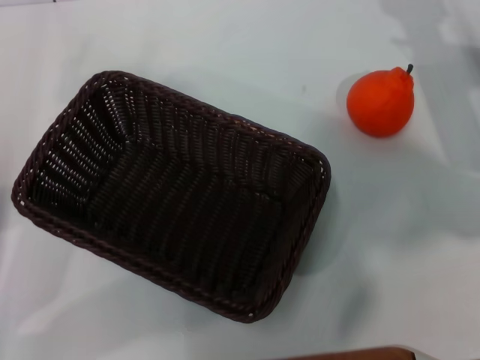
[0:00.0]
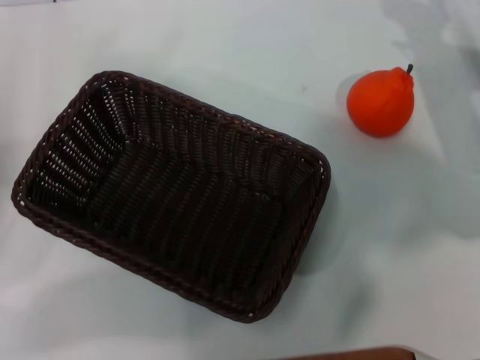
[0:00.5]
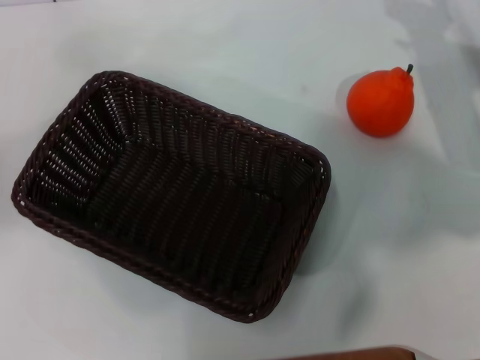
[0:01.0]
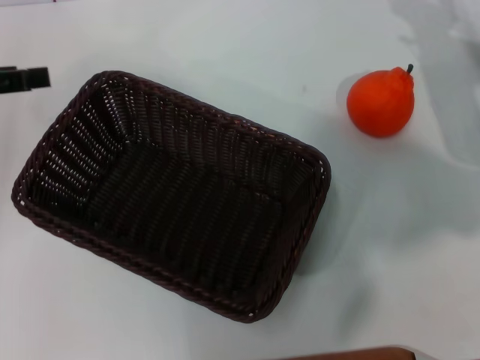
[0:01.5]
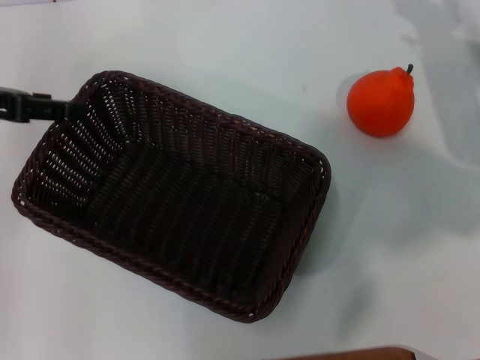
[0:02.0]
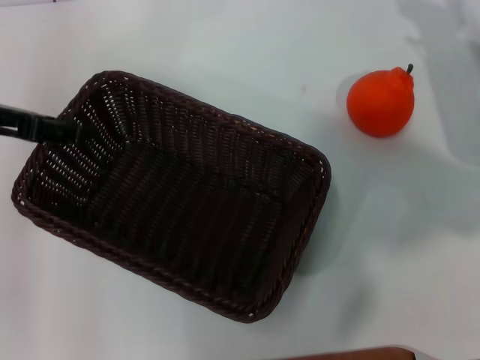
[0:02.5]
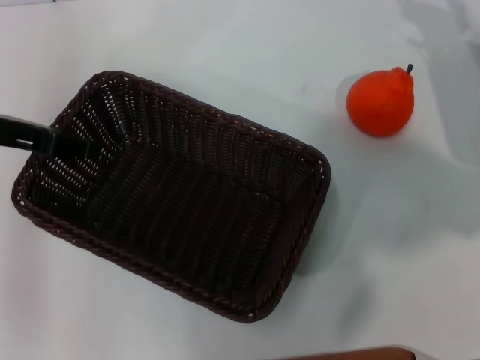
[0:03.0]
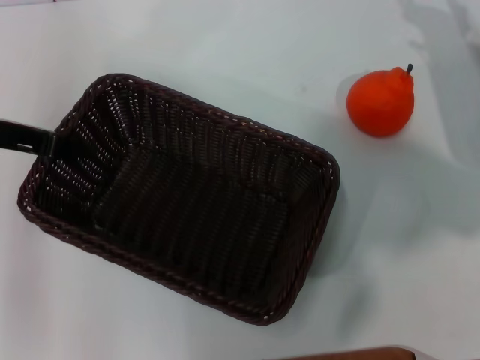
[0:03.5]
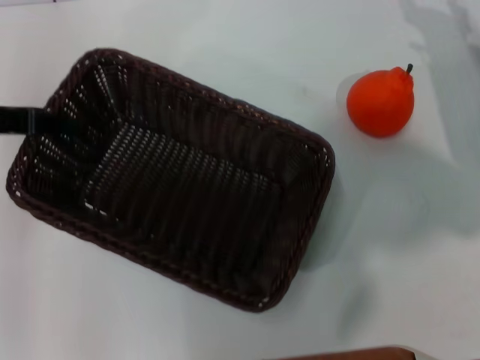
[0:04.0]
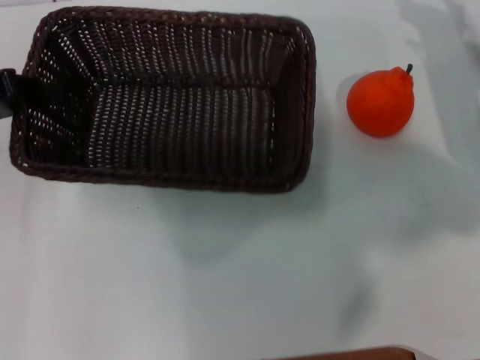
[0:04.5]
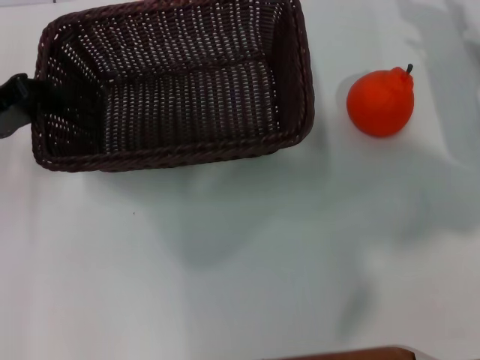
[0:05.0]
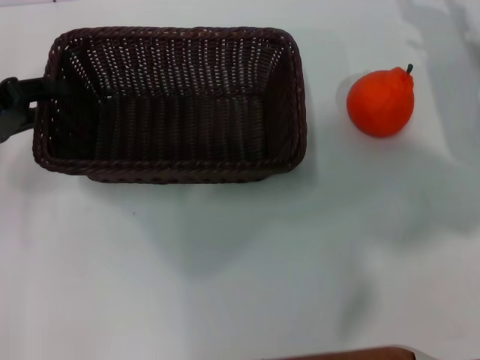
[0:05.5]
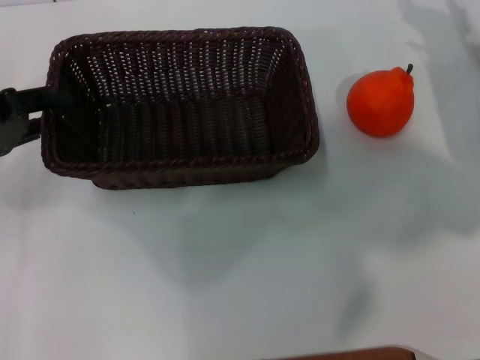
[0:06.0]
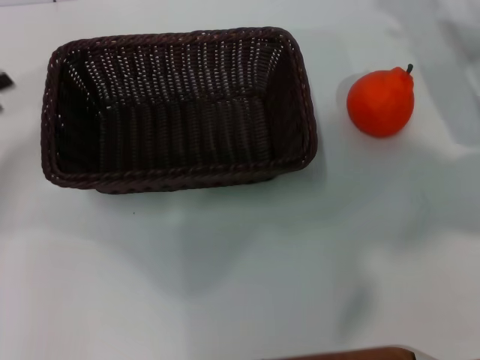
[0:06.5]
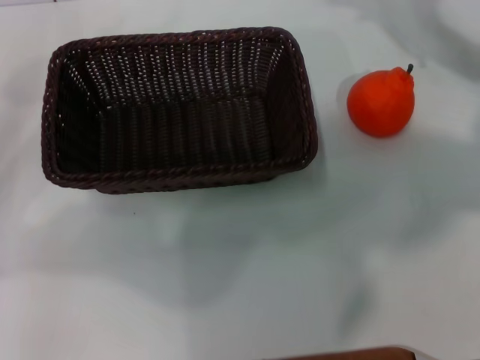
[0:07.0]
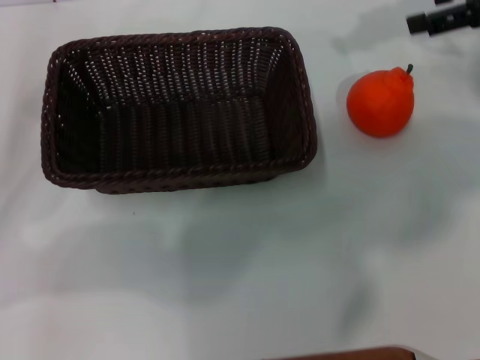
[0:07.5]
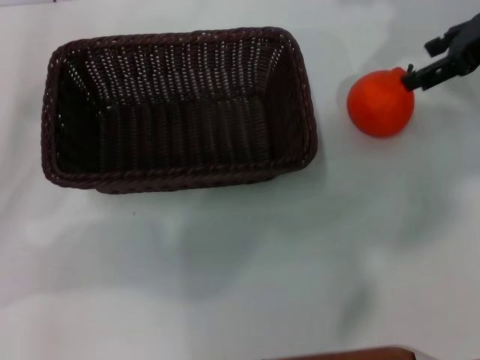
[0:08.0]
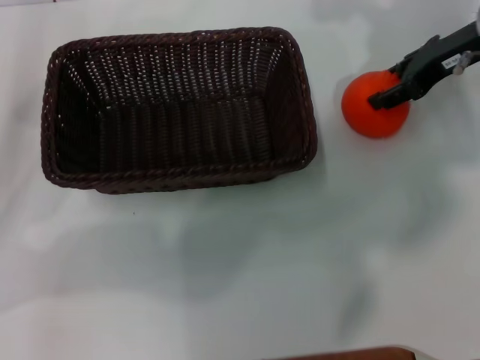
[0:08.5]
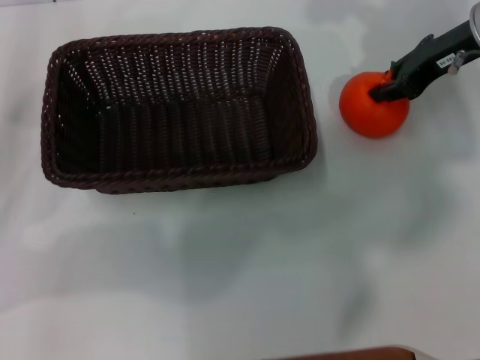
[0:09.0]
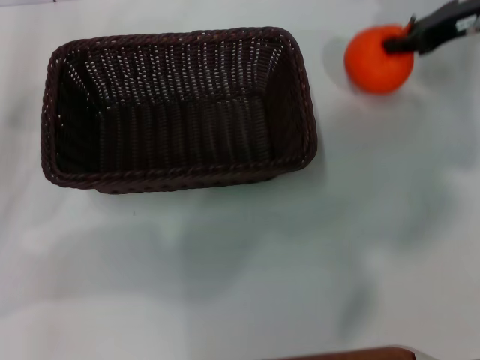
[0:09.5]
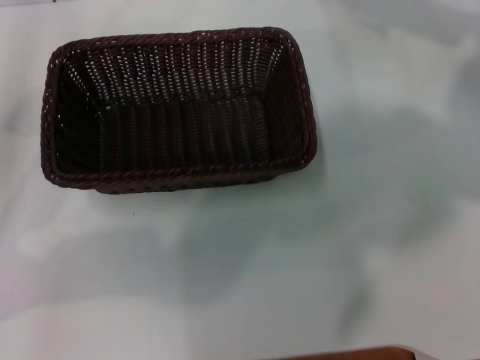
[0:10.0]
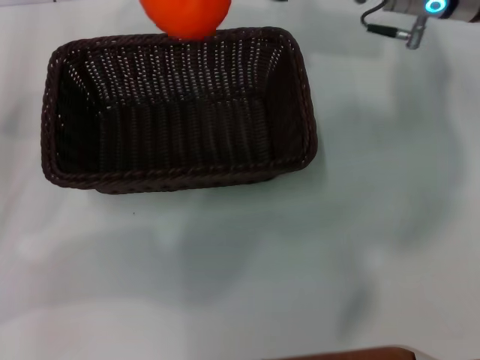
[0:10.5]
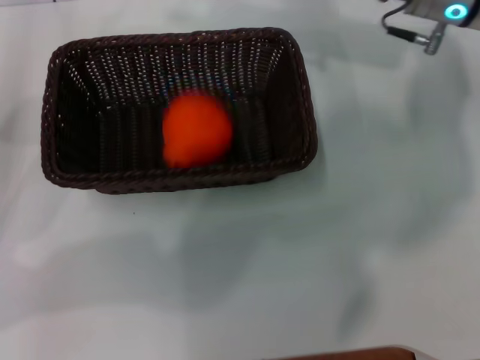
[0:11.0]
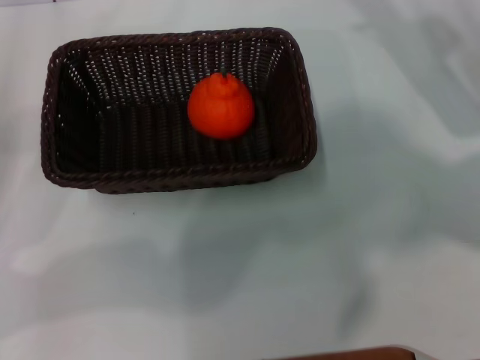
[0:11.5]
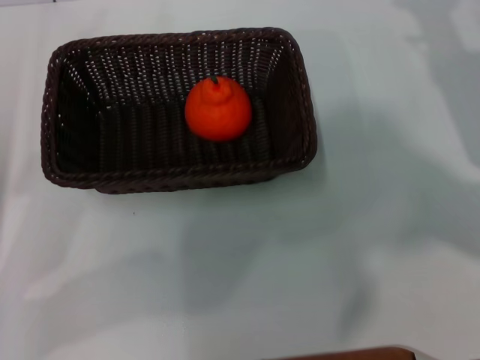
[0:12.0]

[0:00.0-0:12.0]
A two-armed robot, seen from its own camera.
Task of the whole recording: the left gripper pick up the black basket and place it horizontally in the middle of the table, the right gripper pick up the orange and place it into the black basket.
Step, 0:00.0 to 0:04.0: Pick up the dark basket with the left gripper.
Step, 0:04.5 to 0:06.0: Place the dark basket in the center of view with the left gripper.
Step, 0:06.5 to 0:09.5: Pick up the orange with the right gripper.
Step, 0:10.0 to 0:10.5: Place the orange into the dark basket with the right gripper.
0:00.0 to 0:02.0: The left gripper moves forward and upward, some 15 cm.
0:02.0 to 0:04.0: The left gripper closes.
0:04.0 to 0:06.0: The left gripper is displaced downward by some 5 cm, and opens up.
0:06.0 to 0:08.0: The left gripper opens up. The right gripper goes approximately 15 cm upward.
0:08.0 to 0:10.0: The right gripper closes up.
0:10.0 to 0:12.0: The right gripper shifts approximately 15 cm downward and backward, reaches about 10 cm to the left, then returns, and opens its fingers.

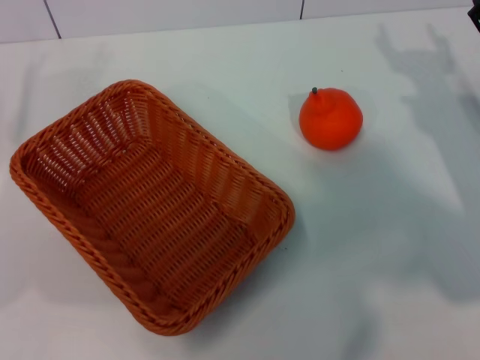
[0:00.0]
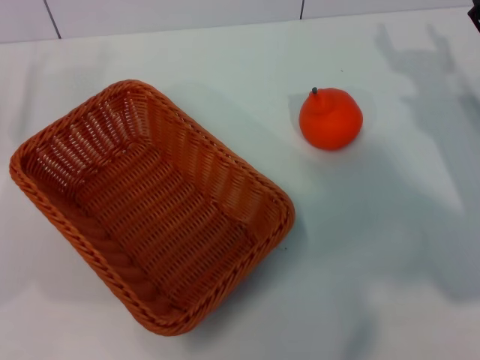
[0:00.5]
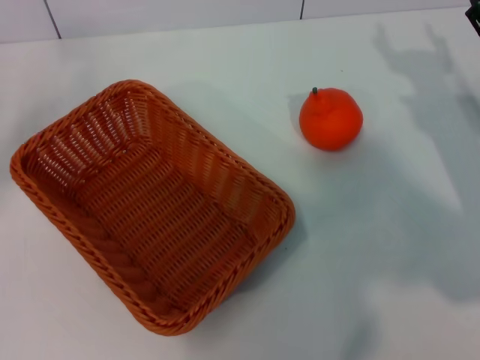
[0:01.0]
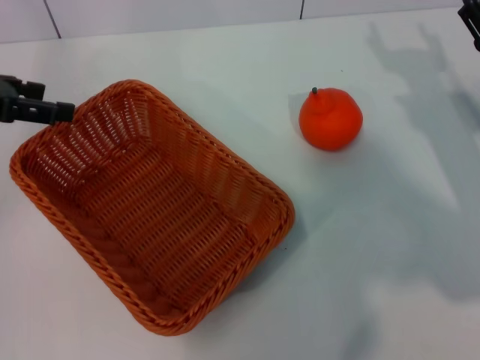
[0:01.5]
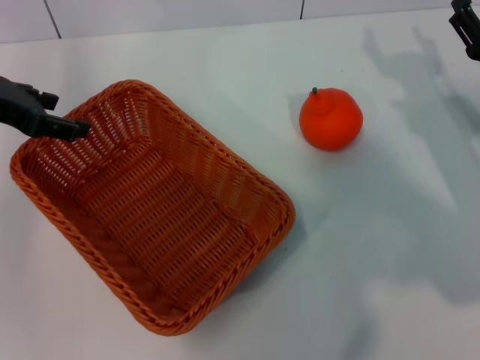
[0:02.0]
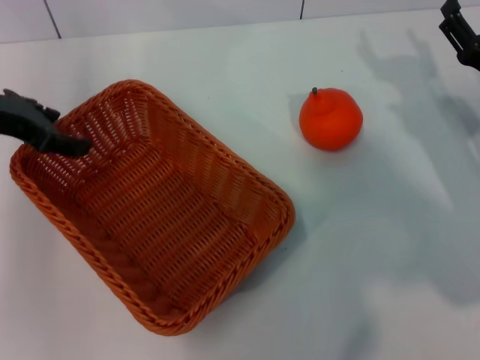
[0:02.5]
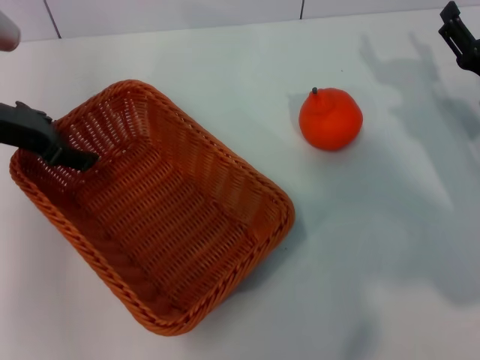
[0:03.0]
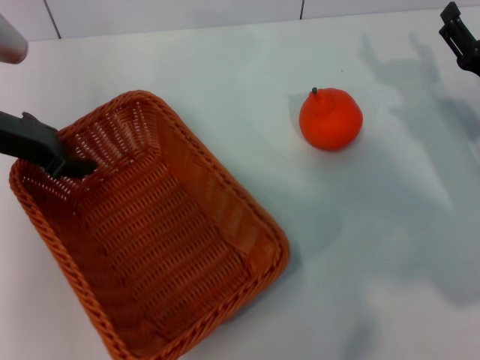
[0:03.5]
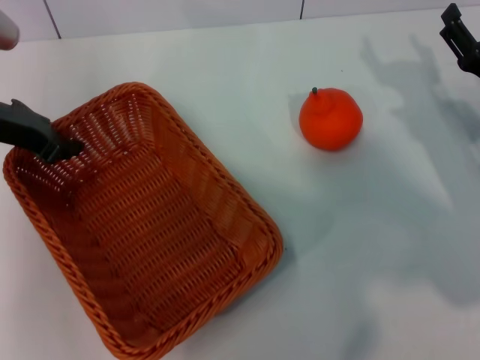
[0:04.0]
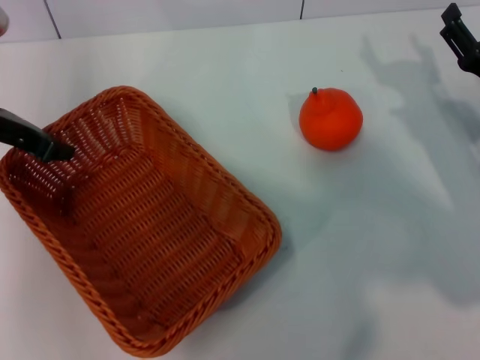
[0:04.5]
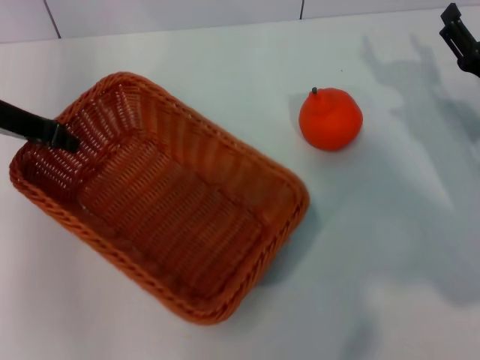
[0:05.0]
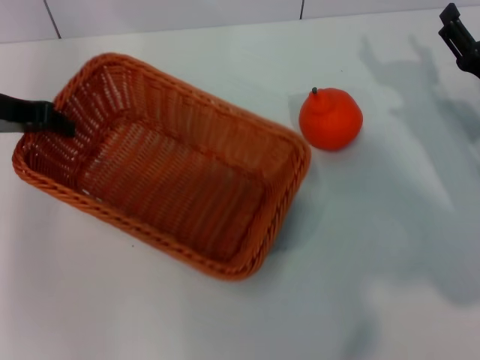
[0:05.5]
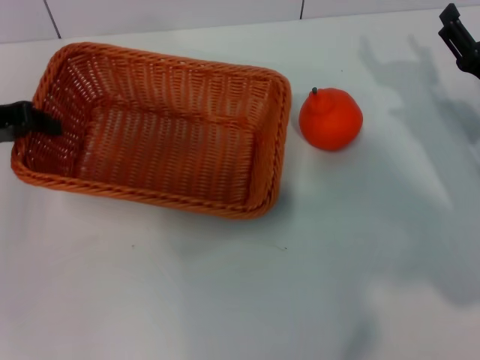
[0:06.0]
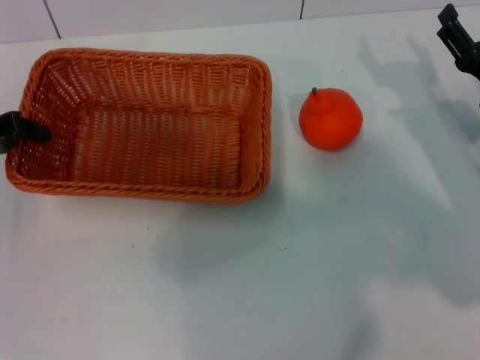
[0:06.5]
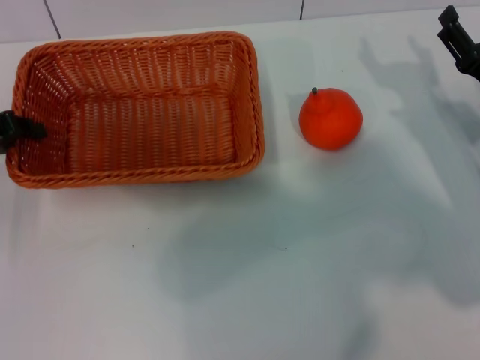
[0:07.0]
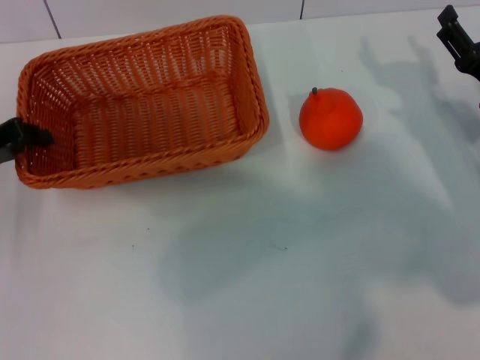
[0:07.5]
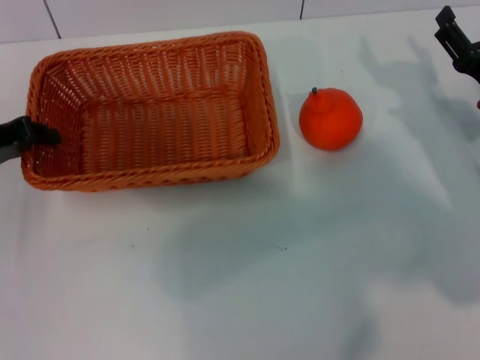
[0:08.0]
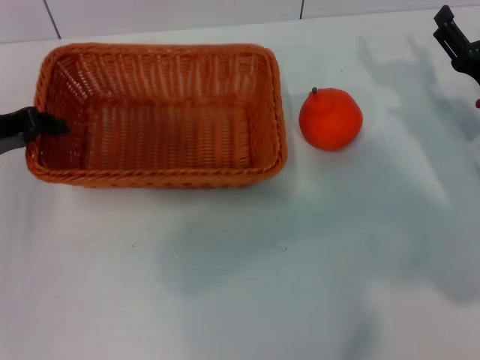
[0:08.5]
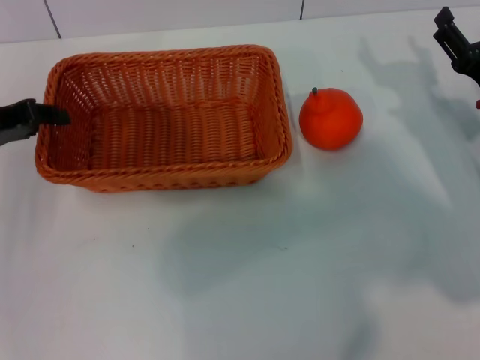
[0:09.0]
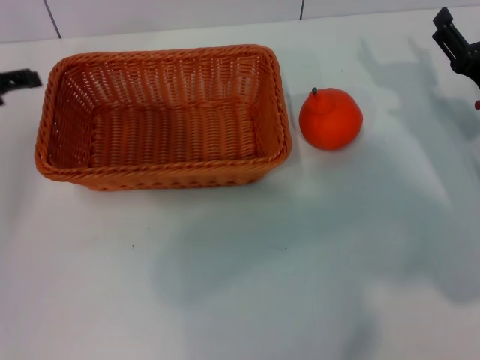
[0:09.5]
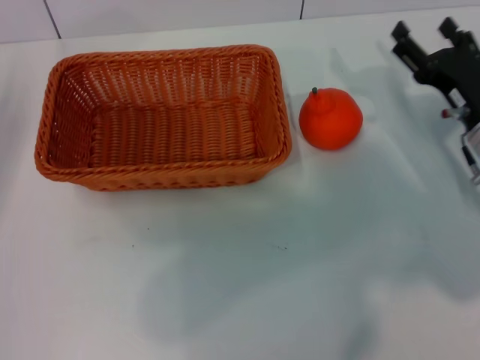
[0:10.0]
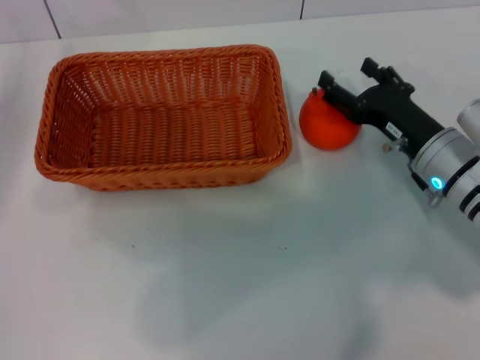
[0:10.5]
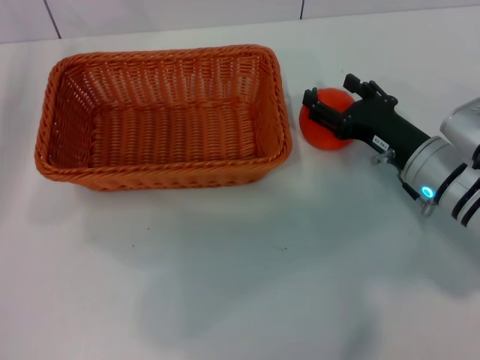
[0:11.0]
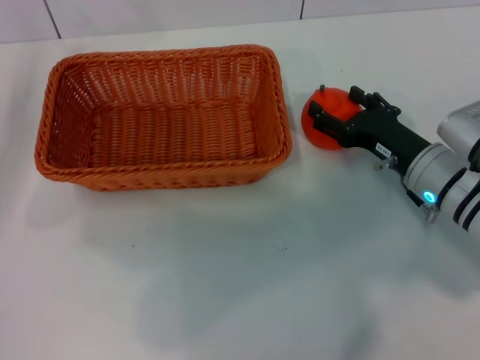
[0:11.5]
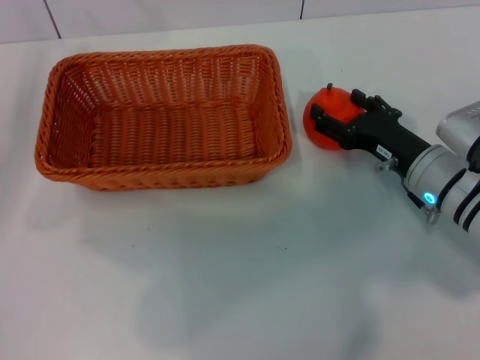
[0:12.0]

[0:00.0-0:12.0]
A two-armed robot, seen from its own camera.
Task of the whole recording: the left gripper pick up the yellow basket and place it horizontally in the middle of the table, the right gripper pick up the orange and place it into the yellow basket.
Step, 0:00.0 to 0:05.0: Pick up the light basket with the left gripper.
Step, 0:05.5 to 0:09.0: Place the light basket in the center of view with the left gripper.
0:00.0 to 0:02.0: The left gripper goes roughly 15 cm upward, to the right and forward.
0:02.0 to 0:04.0: The left gripper closes its fingers.
0:04.0 to 0:06.0: The left gripper shifts about 5 cm to the left.
0:06.0 to 0:08.0: The grippers stay close to where they were, moving slightly.
0:08.0 to 0:10.0: The left gripper moves about 5 cm, and opens up.
0:10.0 to 0:12.0: The right gripper moves some 5 cm.

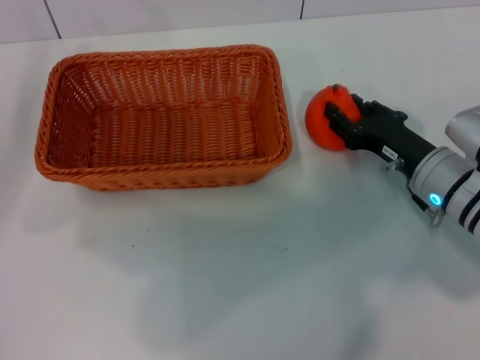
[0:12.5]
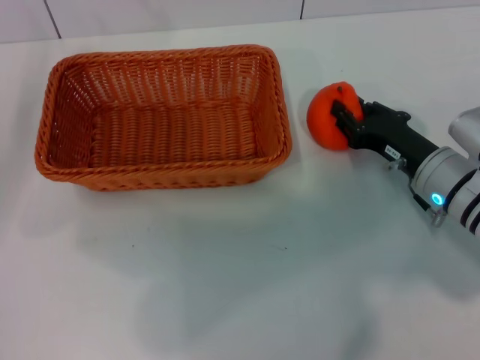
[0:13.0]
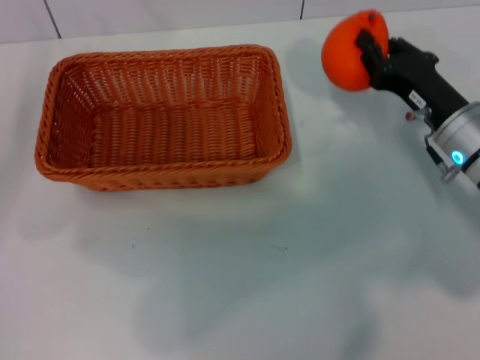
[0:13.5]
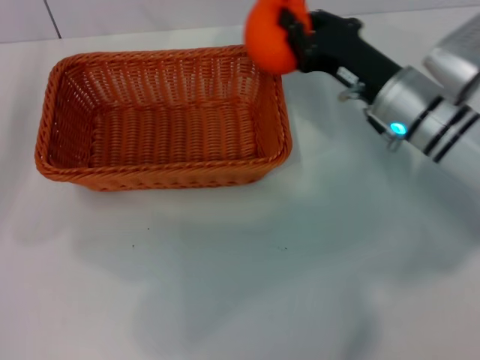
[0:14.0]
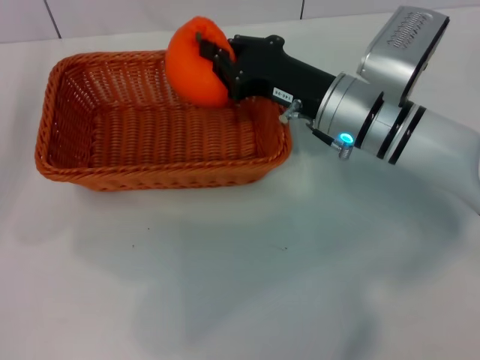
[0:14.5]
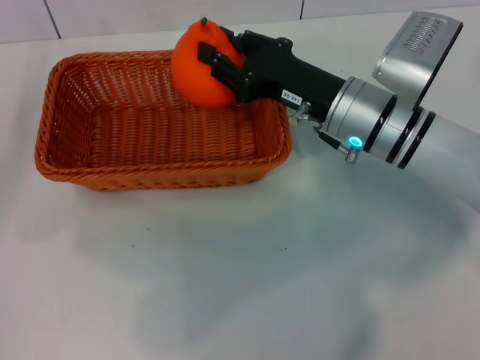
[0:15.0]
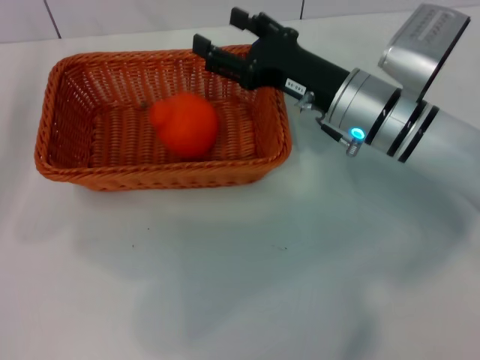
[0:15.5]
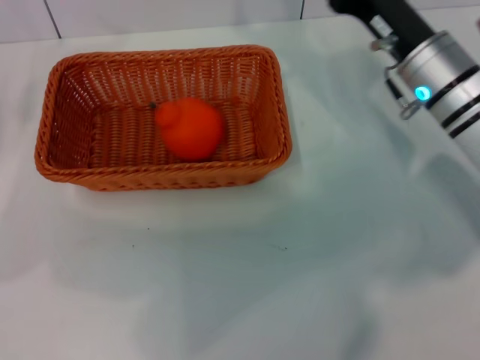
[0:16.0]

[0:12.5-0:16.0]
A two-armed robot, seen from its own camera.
Task of the whole recording: the left gripper pick up the yellow basket and place it horizontally in the middle of the table, the right gripper pick up the orange and place it into the yellow basket.
Step, 0:13.5 to 0:15.5: Place the orange into the light basket with the right gripper.
0:12.5 to 0:14.5: The right gripper heads to the left and upward, covering some 10 cm, and closes its fingers.
0:14.5 to 0:16.0: The right gripper travels to the right by some 5 cm, and opens up.
